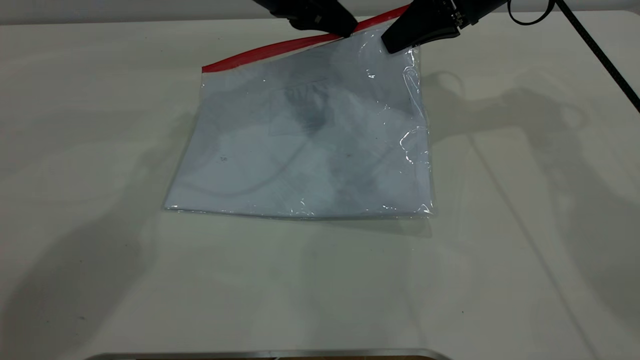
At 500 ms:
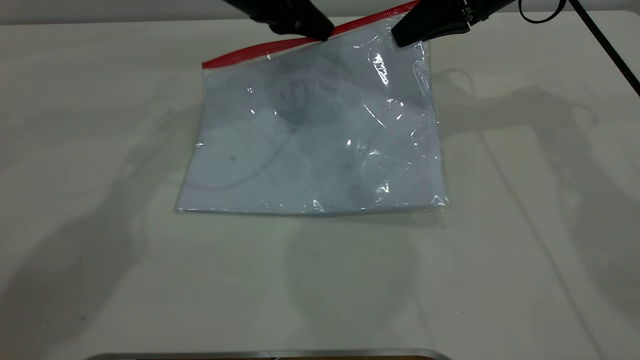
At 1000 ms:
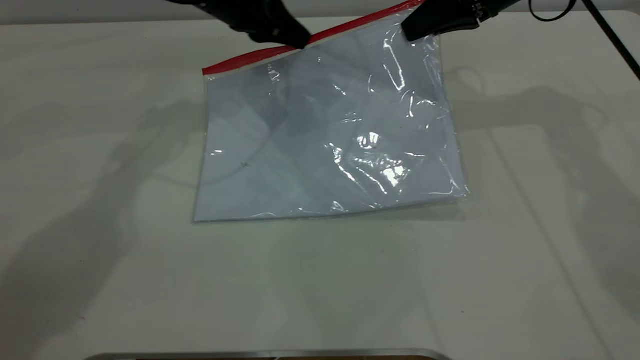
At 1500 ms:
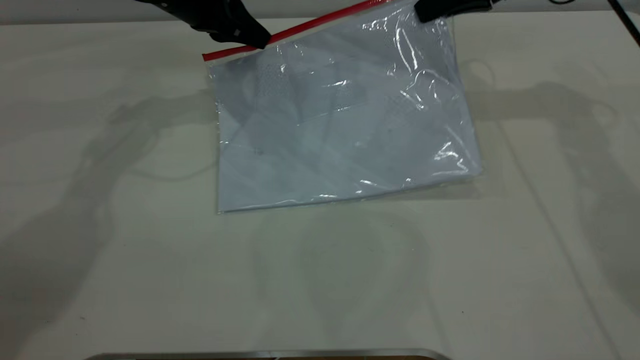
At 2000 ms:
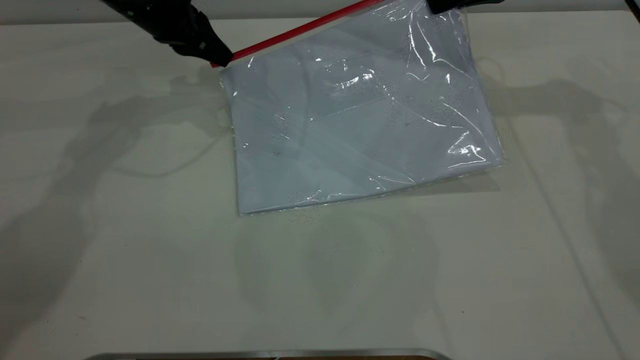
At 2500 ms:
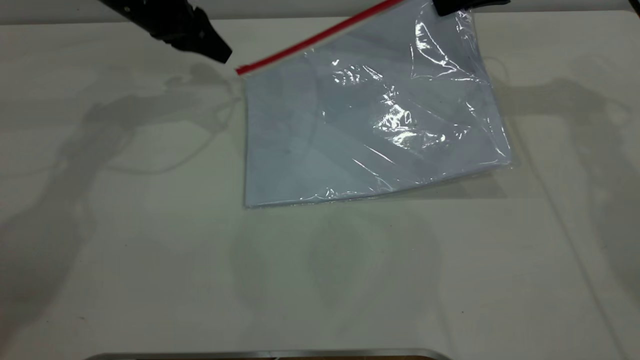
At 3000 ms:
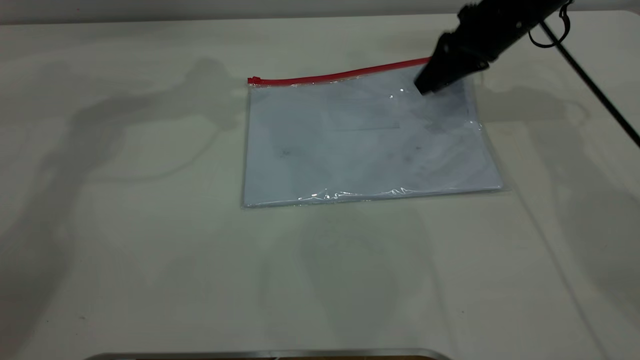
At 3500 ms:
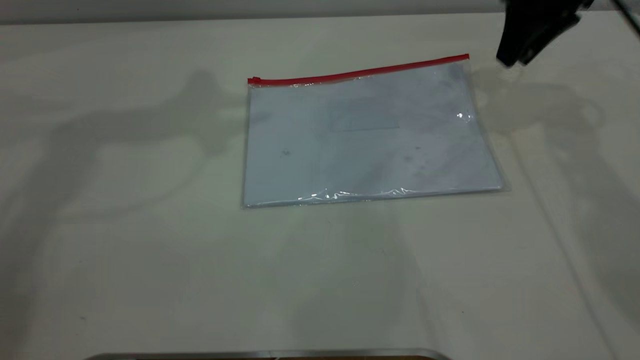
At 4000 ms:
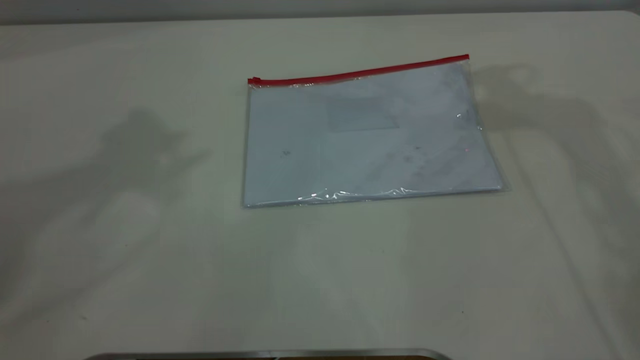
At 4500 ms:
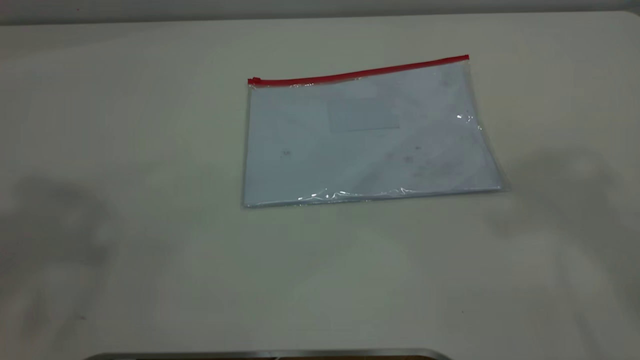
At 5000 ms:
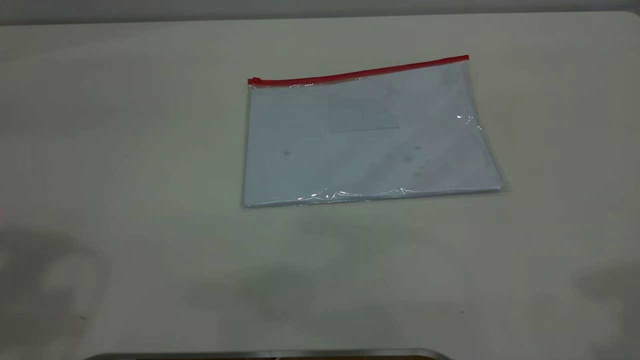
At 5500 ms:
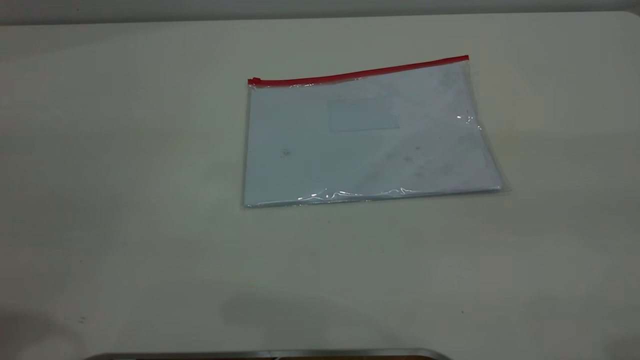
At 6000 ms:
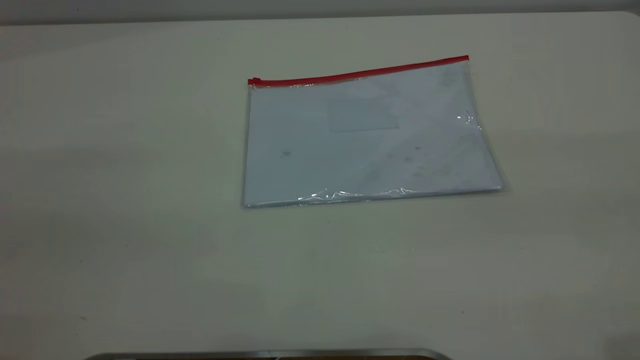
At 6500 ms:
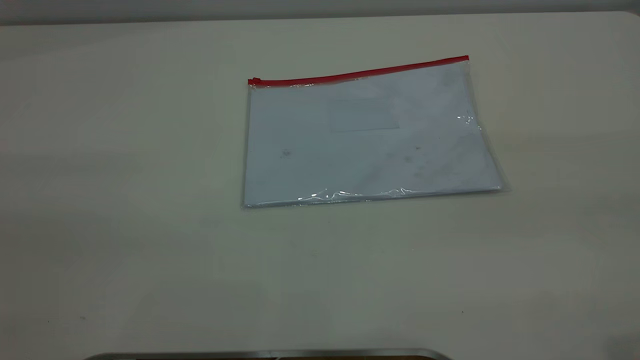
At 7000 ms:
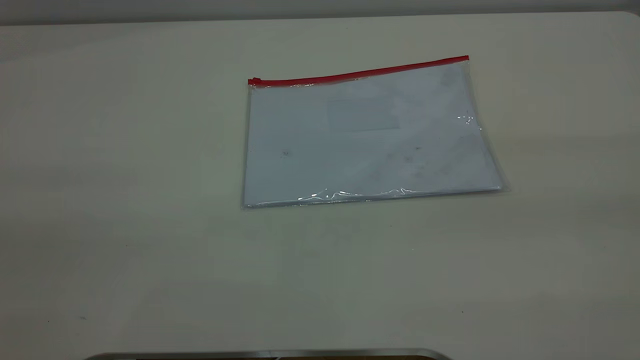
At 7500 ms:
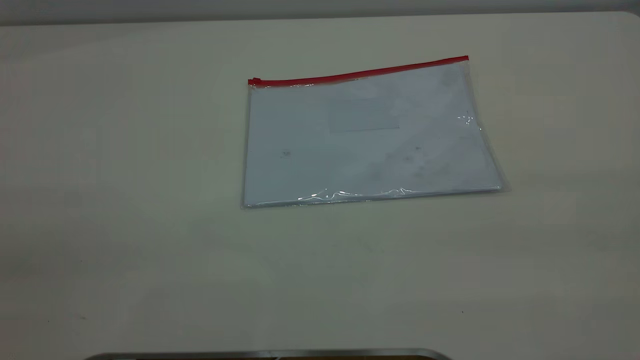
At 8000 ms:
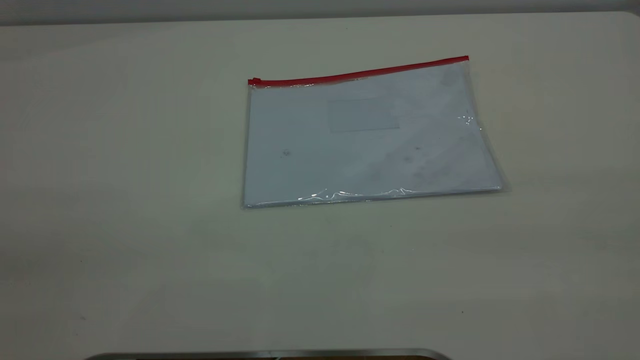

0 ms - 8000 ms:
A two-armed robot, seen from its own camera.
Step, 0 ms - 2500 ms: Pulling up the zipper on the transparent plastic bag with the left gripper to close it.
Step, 3000 ms - 4000 ms: Place the transparent plastic bag.
0 ms - 2000 ms: The left gripper goes some 15 cm to the left, while the right gripper is displaced to the right by approximately 5 cm.
2000 ms - 4000 ms: The right gripper goes some 20 cm upward, and opens up; the left gripper heads upward and backward, covering some 40 cm, and opens its fingers.

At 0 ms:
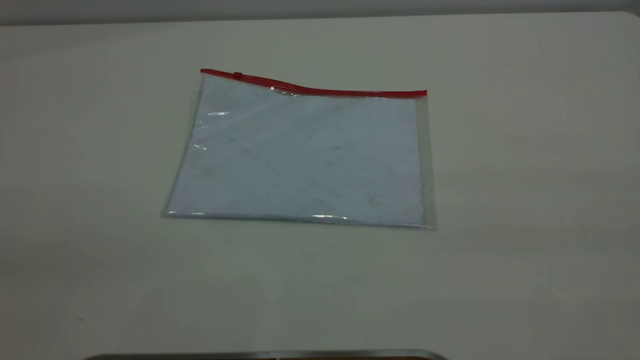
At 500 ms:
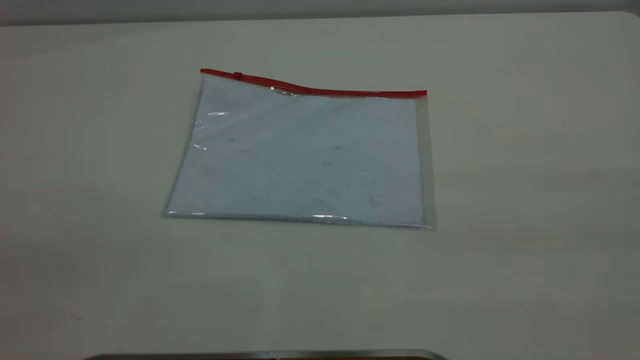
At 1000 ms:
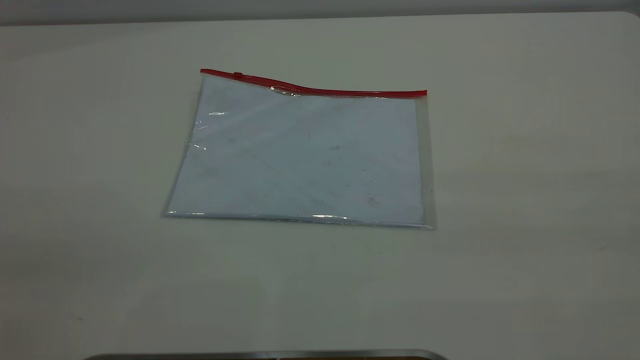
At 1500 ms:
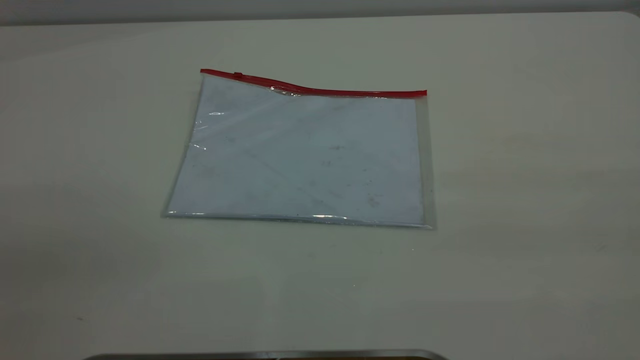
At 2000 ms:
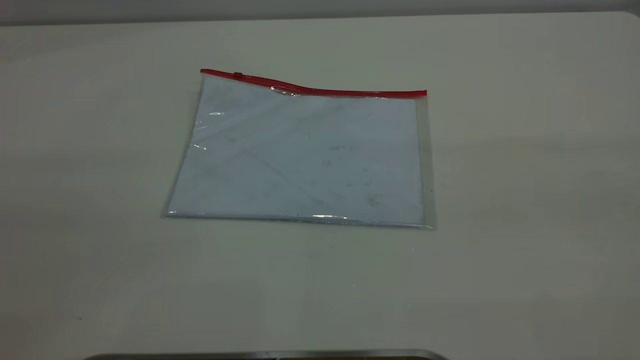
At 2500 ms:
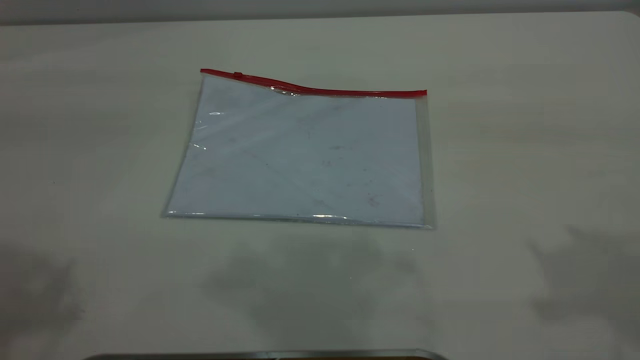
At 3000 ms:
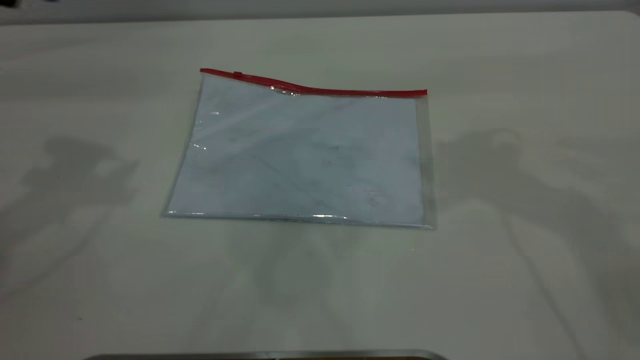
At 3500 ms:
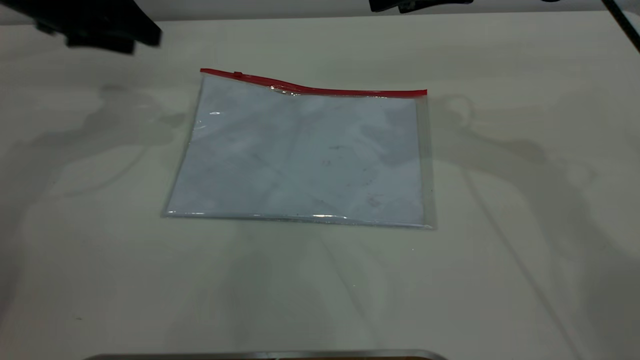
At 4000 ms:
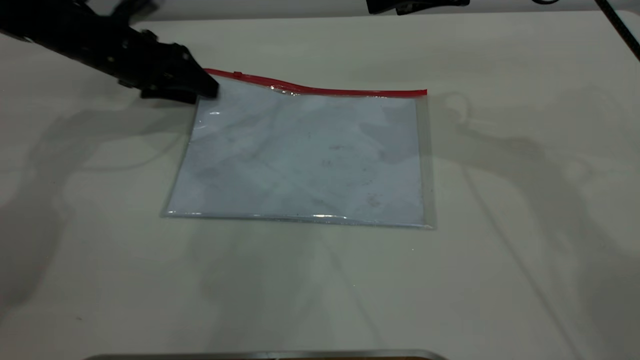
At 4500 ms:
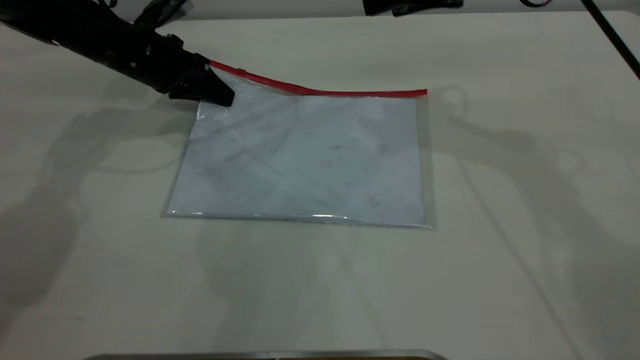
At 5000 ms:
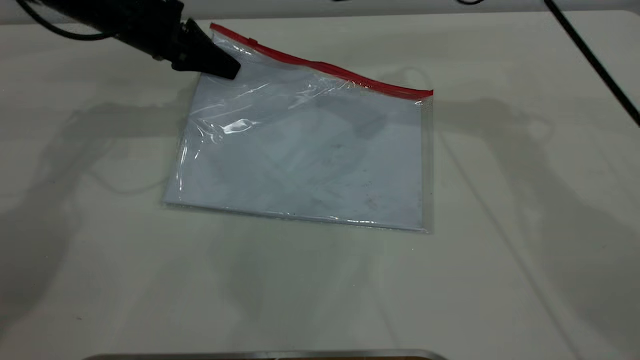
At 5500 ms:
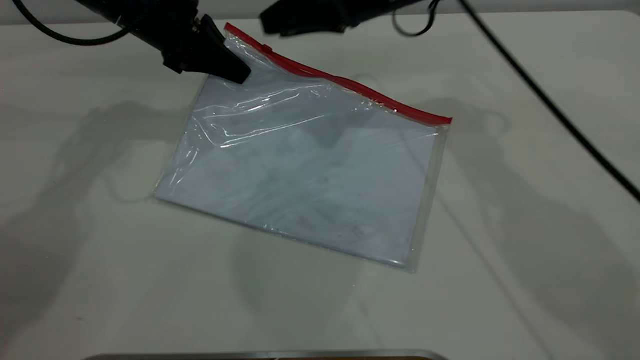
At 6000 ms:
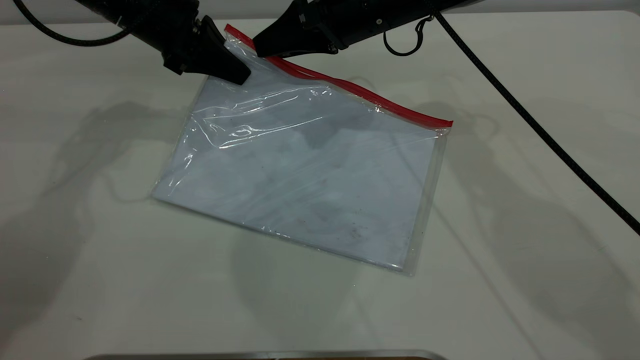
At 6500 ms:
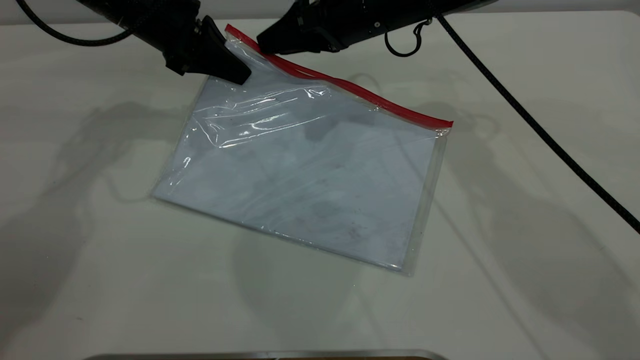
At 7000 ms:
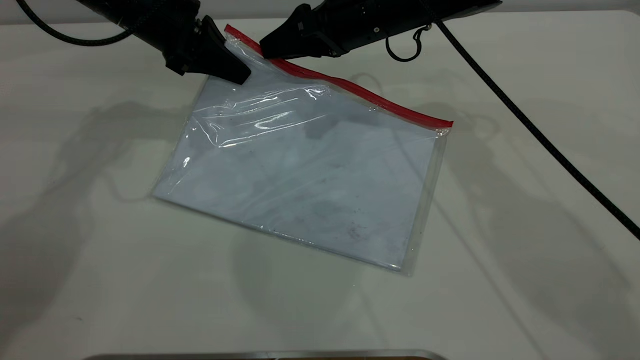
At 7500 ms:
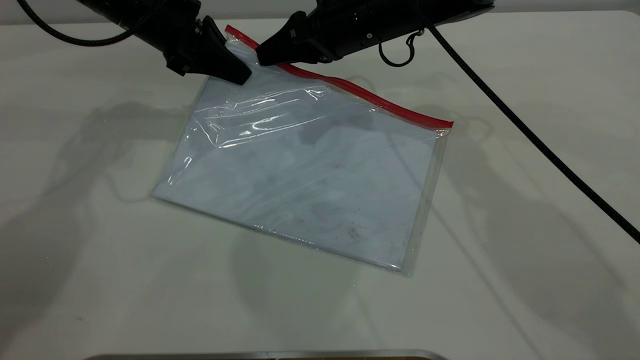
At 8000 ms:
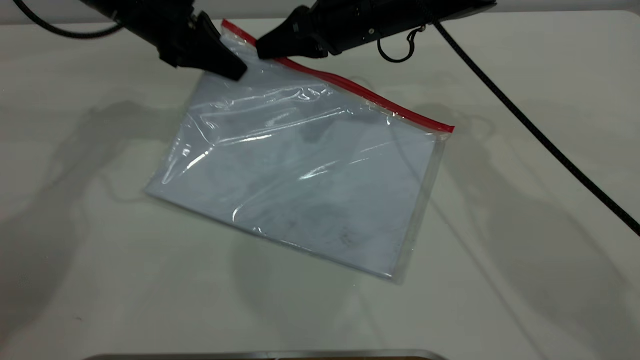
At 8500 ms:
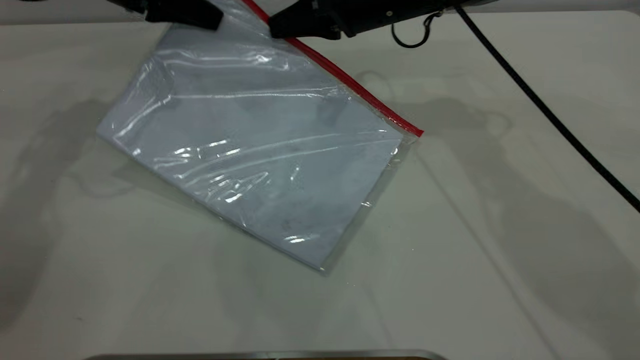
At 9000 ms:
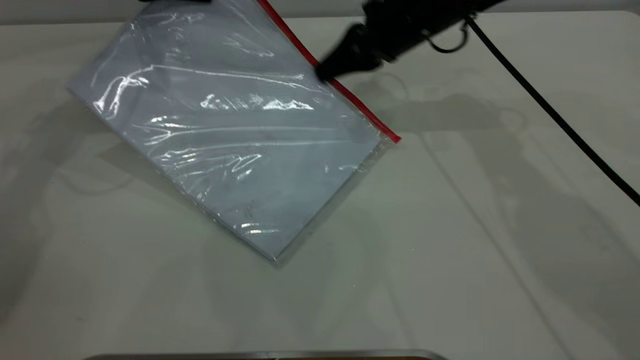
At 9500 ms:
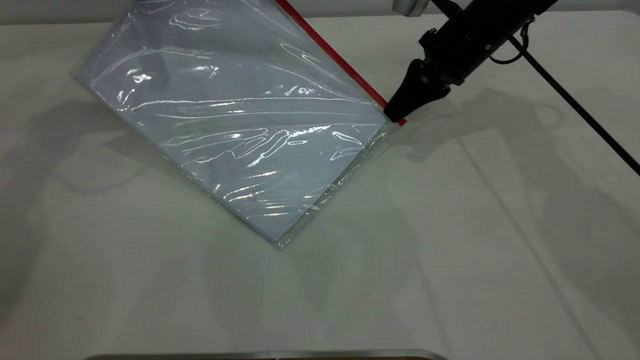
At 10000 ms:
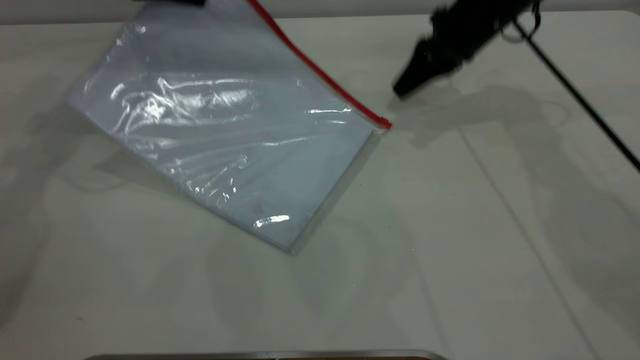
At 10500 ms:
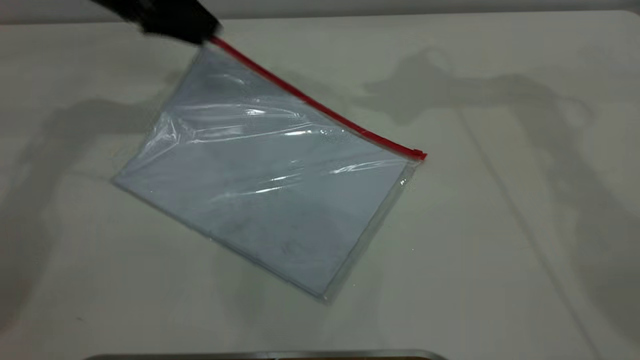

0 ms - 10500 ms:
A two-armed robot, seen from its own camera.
Step, 0 ms - 5000 ms: Pick up the transparent plastic bag with the left gripper.
Step, 5500 ms - 9500 ms: Pulling up the zipper on the transparent plastic bag with the right gripper to close it.
2000 ms - 4000 ms: Both grippers travel together forward and downward, roughly 50 cm.
4000 ms - 6500 ms: The left gripper moves upward and to the right, roughly 10 cm, and closes. Meanwhile the right gripper travels to the left, downward and forward by roughly 15 cm.
6500 ms - 8500 ms: The right gripper closes, while the left gripper moves roughly 5 cm.
8500 ms - 10500 ms: The right gripper heads upward and to the right, covering approximately 20 cm, and opens up. The left gripper opens up.

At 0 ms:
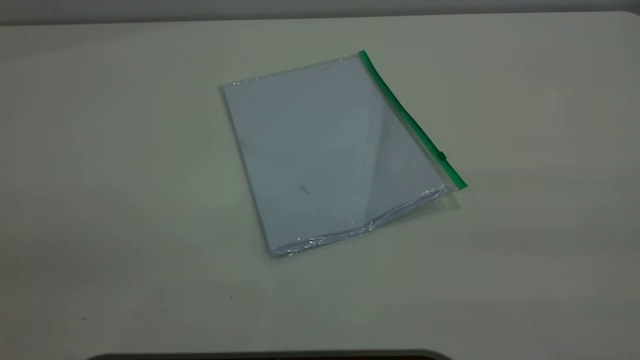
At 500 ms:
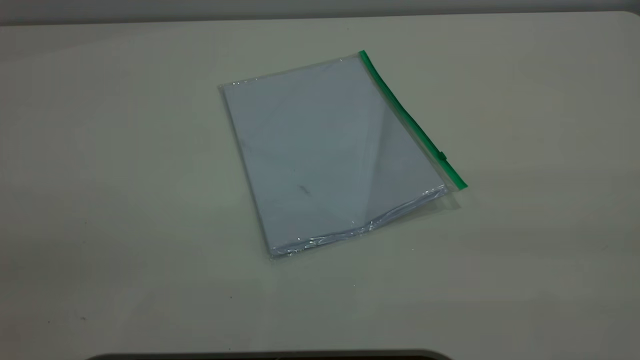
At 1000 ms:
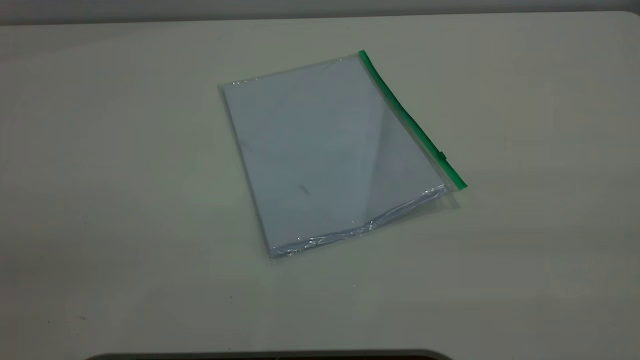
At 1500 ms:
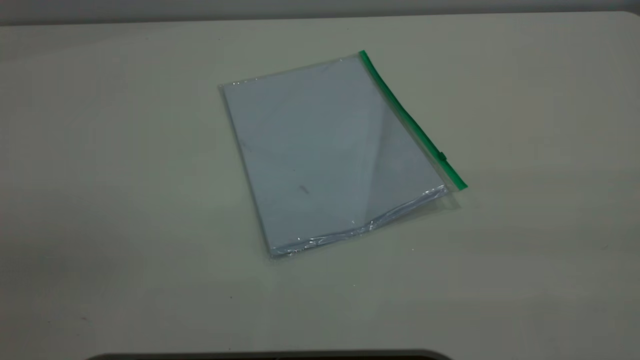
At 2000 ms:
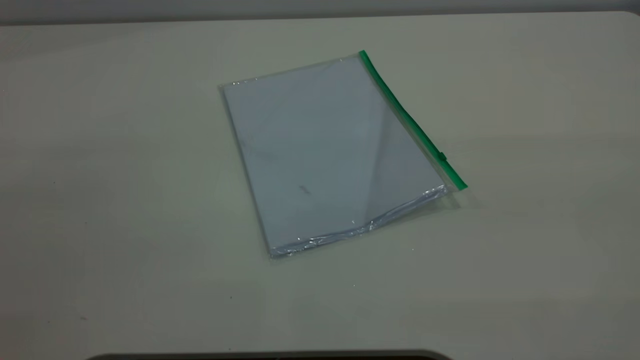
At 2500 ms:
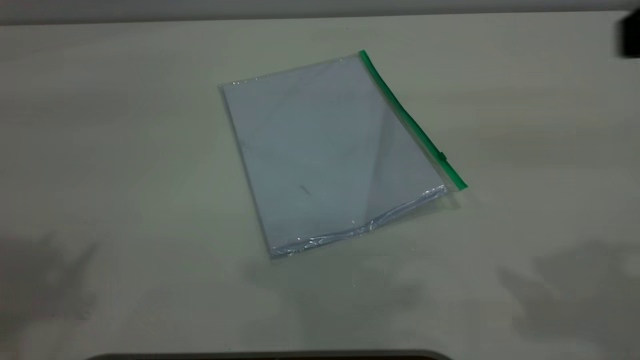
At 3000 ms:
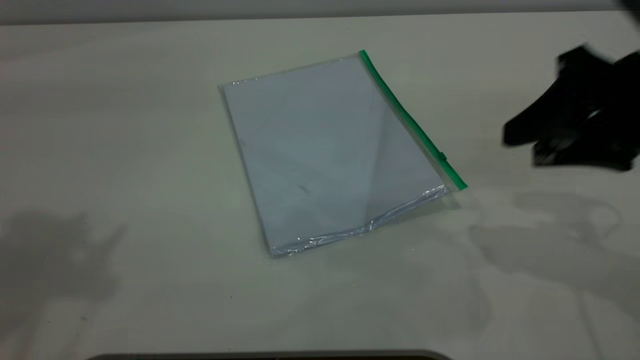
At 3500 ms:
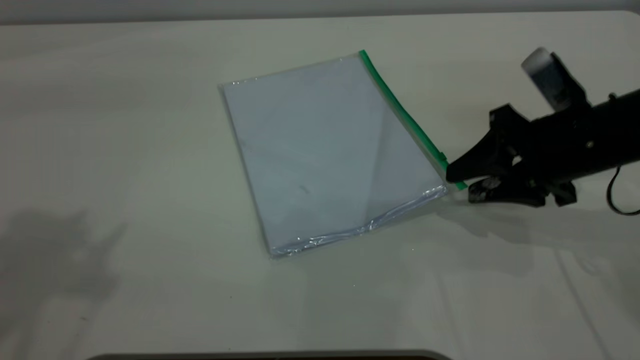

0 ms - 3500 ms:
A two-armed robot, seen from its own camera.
2000 ms - 3500 ms: The right gripper goes some 40 cm downward and forward.
